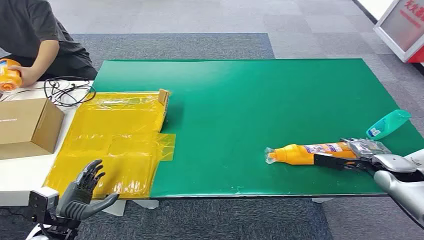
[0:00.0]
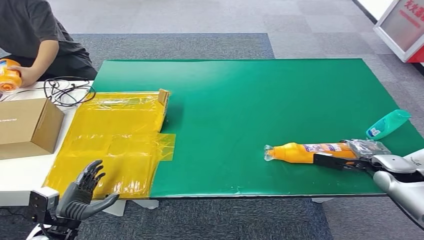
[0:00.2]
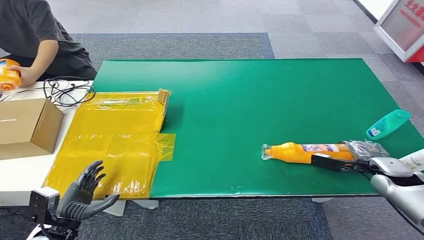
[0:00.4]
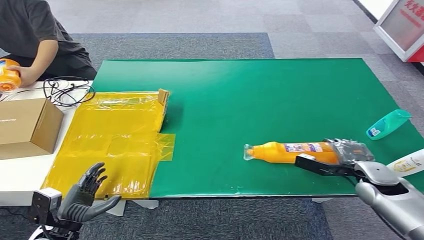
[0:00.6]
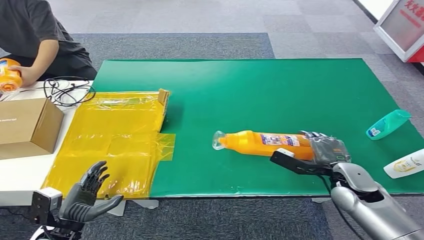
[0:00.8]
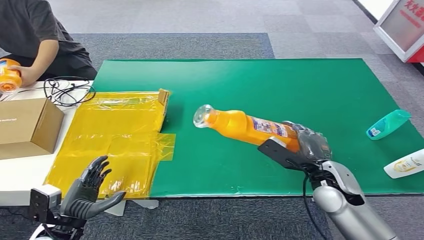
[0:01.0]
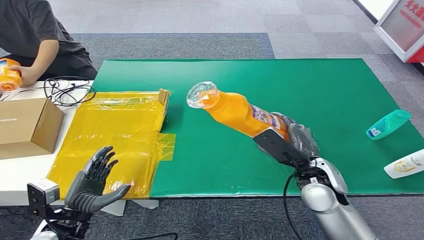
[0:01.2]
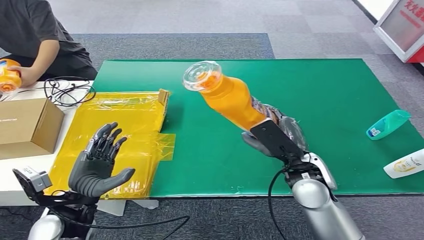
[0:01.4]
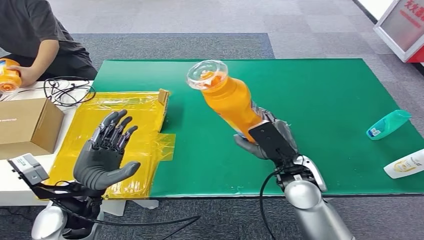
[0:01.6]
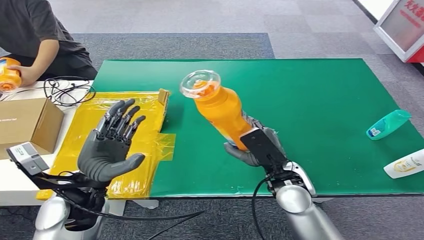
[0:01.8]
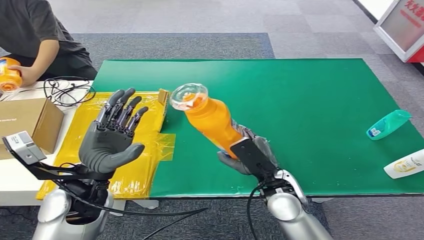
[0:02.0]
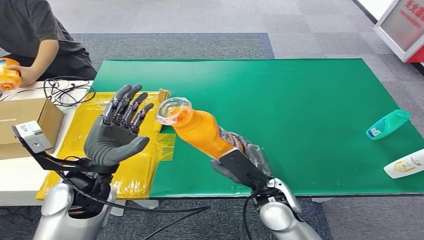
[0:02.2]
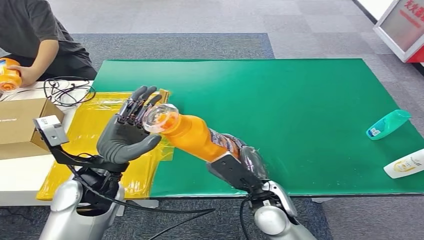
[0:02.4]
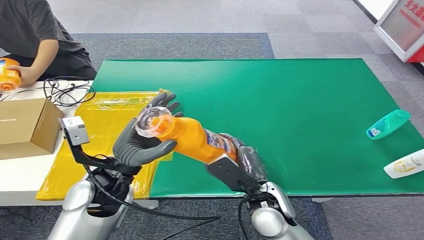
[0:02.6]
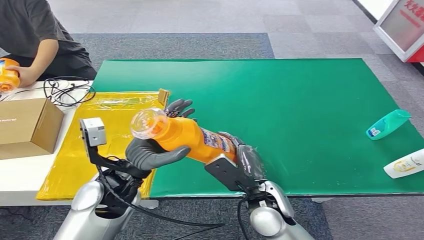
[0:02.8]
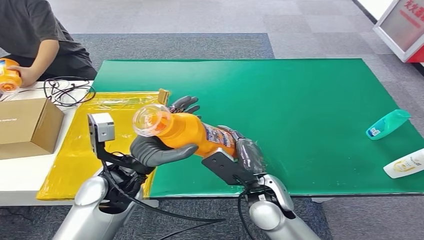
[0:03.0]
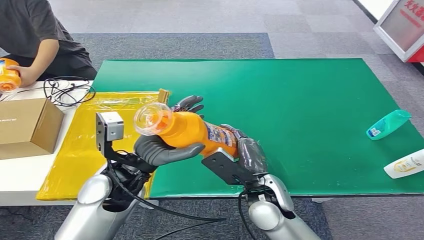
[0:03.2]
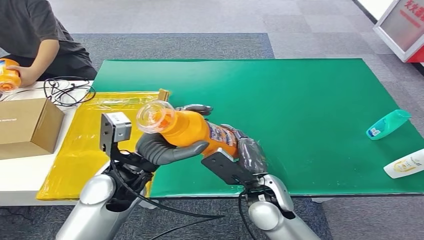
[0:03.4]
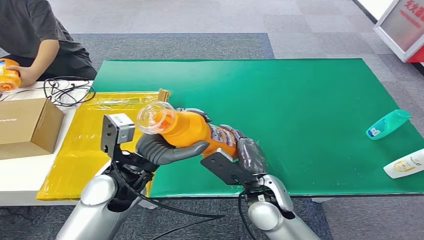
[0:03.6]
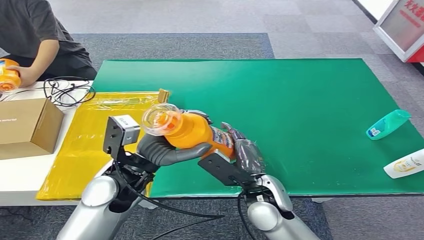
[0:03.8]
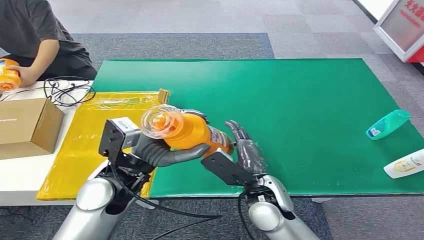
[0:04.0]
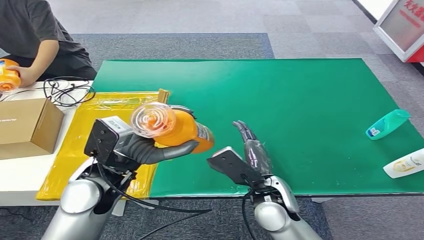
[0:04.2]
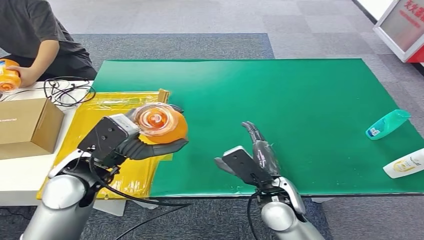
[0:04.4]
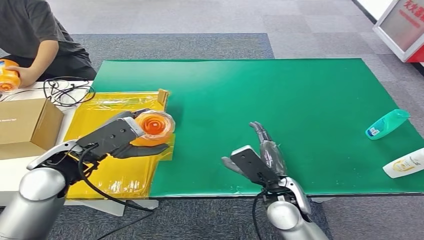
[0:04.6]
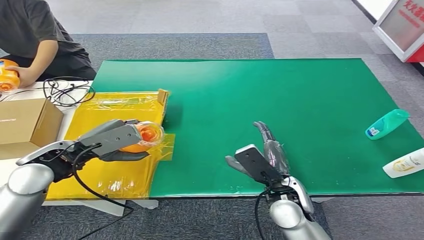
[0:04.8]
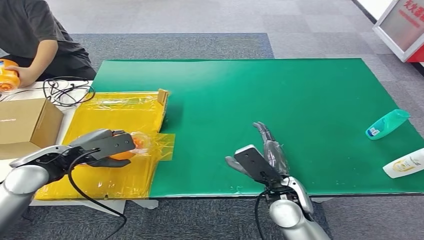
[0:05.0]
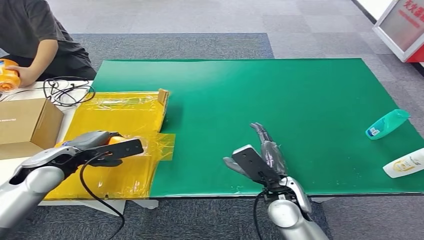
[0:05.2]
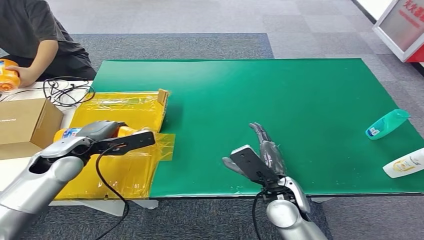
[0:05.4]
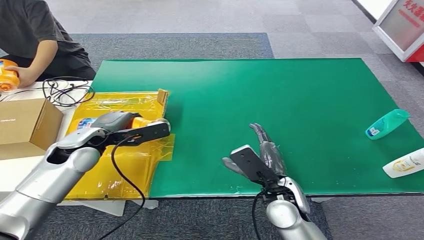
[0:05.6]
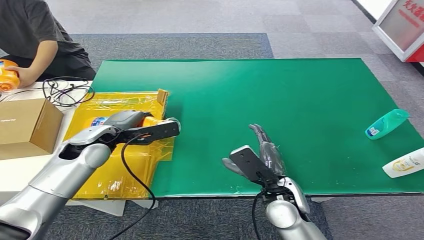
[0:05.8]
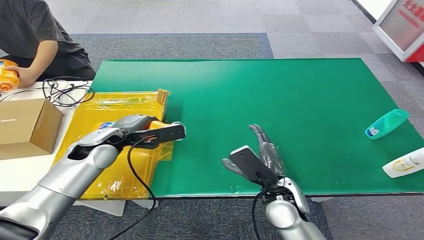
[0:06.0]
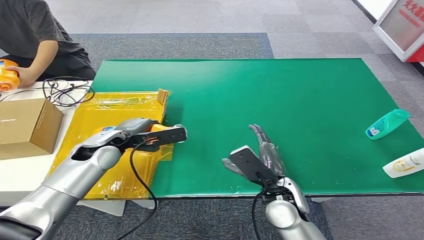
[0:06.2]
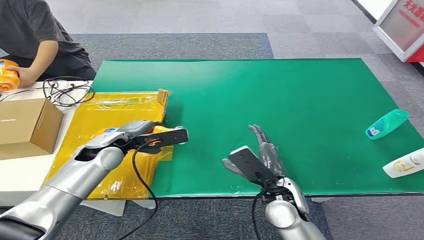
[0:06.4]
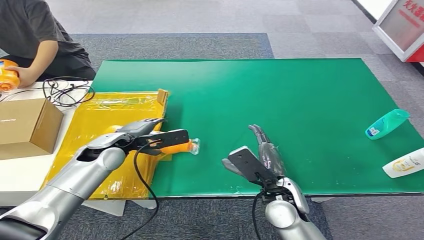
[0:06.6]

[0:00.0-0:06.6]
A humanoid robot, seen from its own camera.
Step, 0:00.0 to 0:01.6: Pick up the bottle from the table.
Step, 0:01.8 to 0:06.6: Turn the bottle to the front side.
0:03.2 to 0:05.0: The right hand changes place by approximately 5 cm; the left hand heads to the left, covering about 20 cm.
0:05.0 to 0:06.6: The left hand heads to the right and downward, covering about 15 cm.

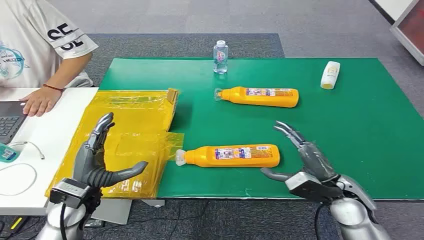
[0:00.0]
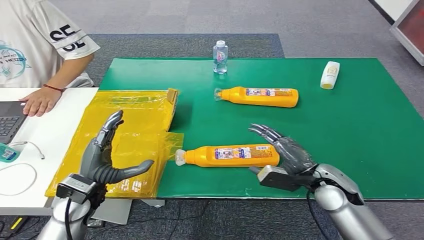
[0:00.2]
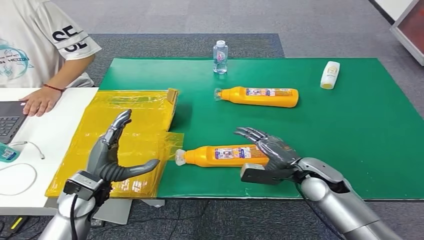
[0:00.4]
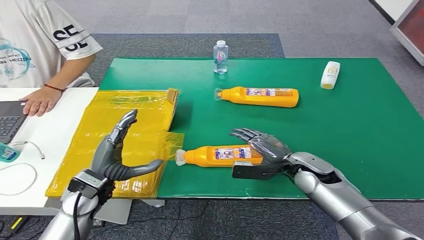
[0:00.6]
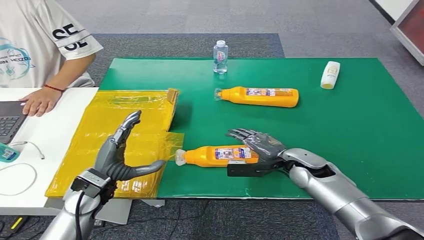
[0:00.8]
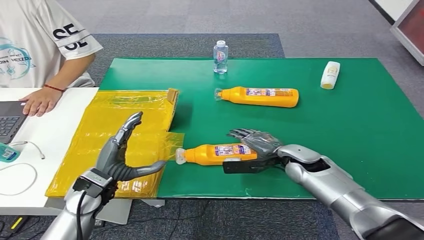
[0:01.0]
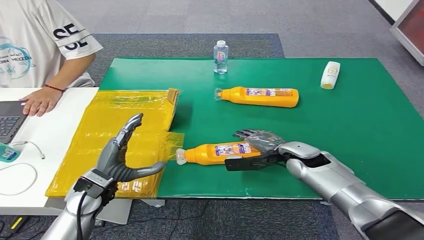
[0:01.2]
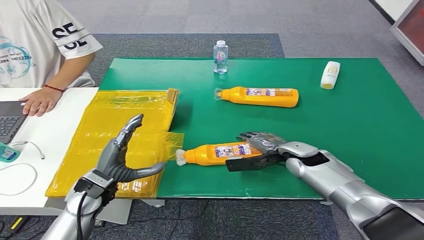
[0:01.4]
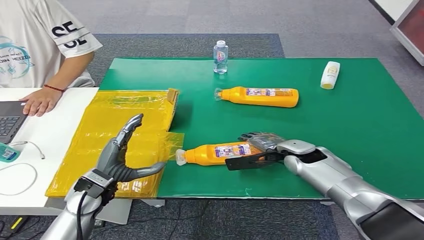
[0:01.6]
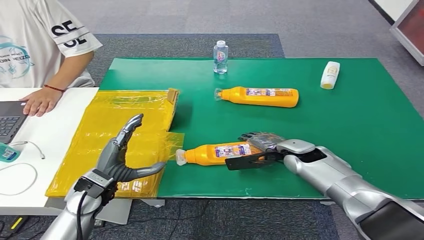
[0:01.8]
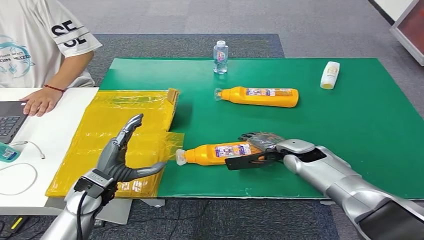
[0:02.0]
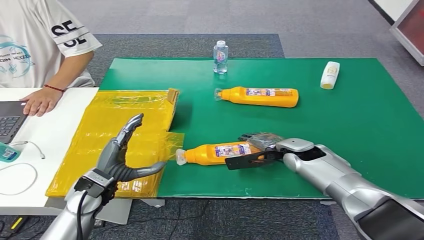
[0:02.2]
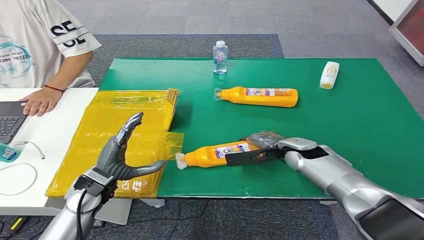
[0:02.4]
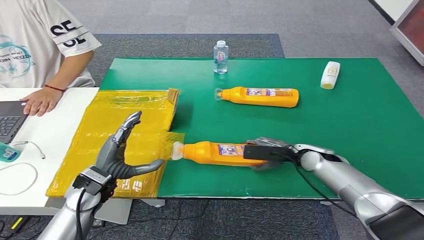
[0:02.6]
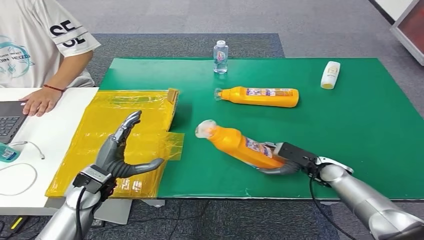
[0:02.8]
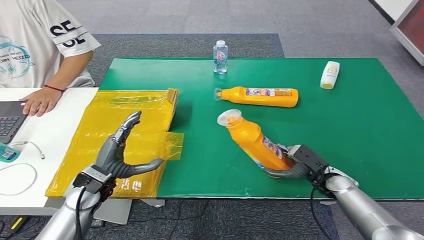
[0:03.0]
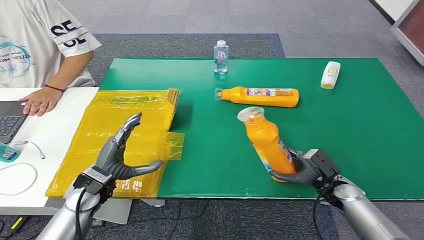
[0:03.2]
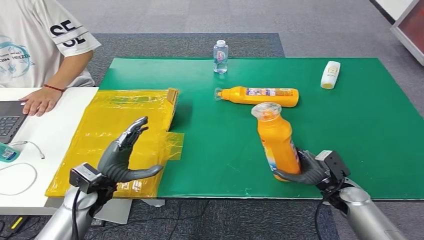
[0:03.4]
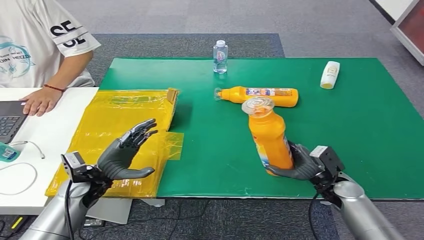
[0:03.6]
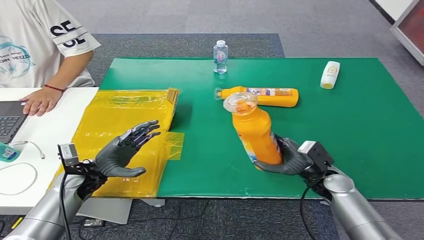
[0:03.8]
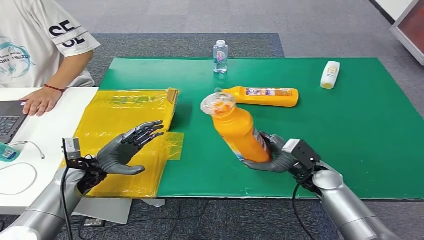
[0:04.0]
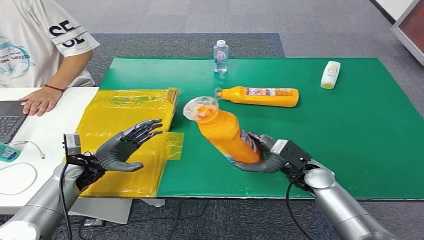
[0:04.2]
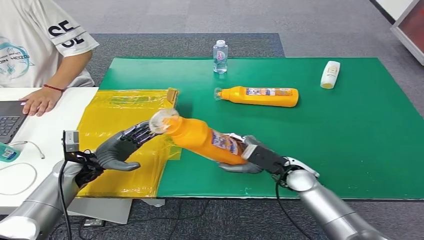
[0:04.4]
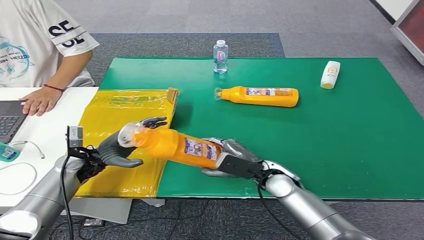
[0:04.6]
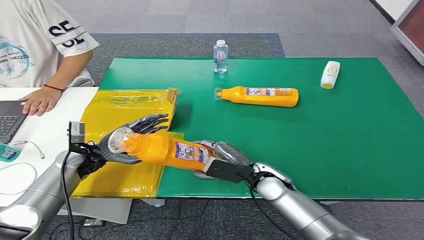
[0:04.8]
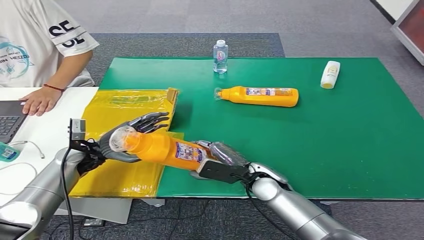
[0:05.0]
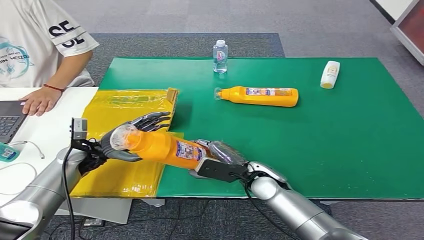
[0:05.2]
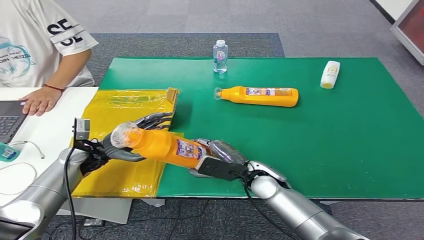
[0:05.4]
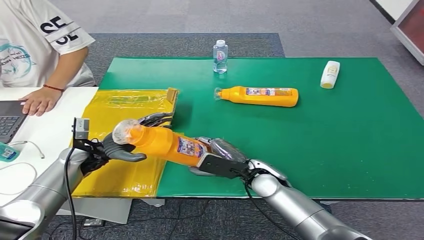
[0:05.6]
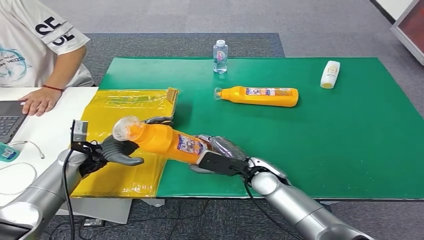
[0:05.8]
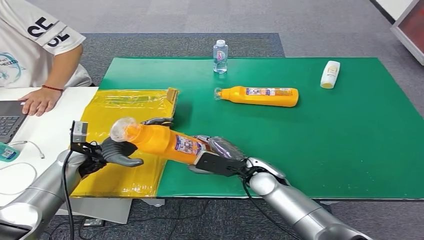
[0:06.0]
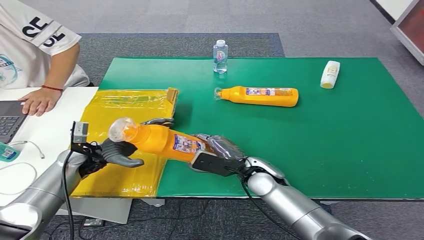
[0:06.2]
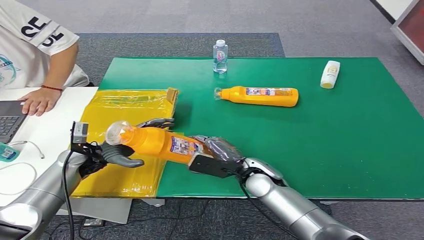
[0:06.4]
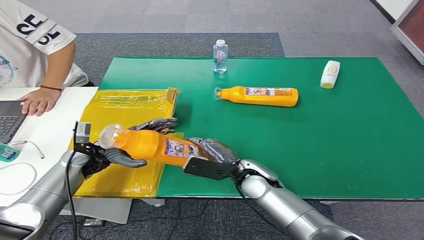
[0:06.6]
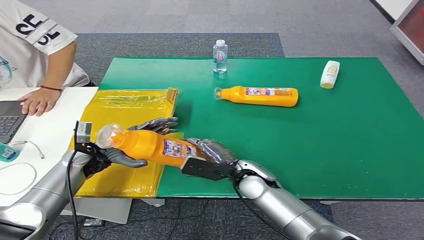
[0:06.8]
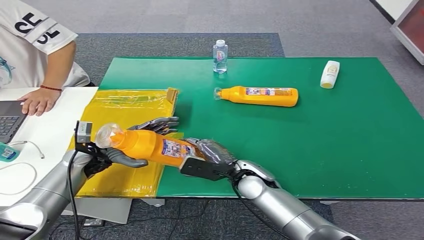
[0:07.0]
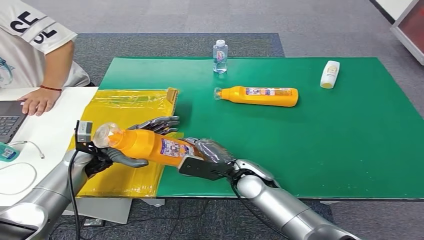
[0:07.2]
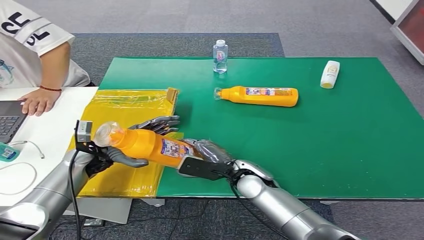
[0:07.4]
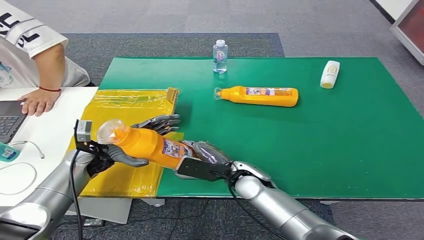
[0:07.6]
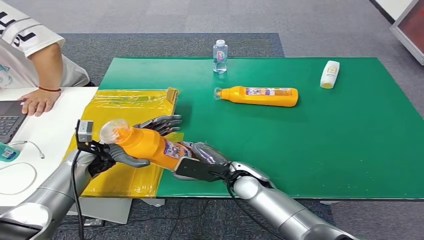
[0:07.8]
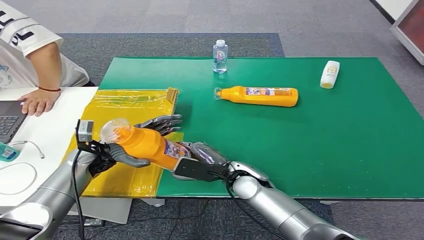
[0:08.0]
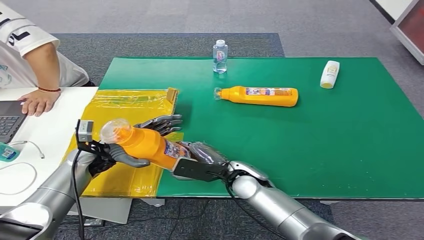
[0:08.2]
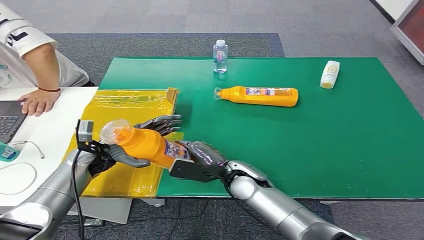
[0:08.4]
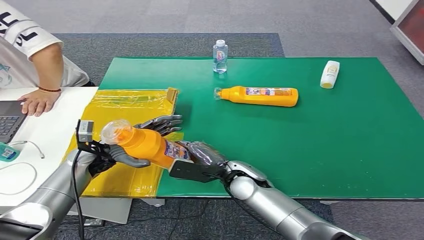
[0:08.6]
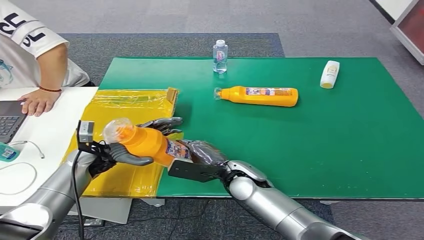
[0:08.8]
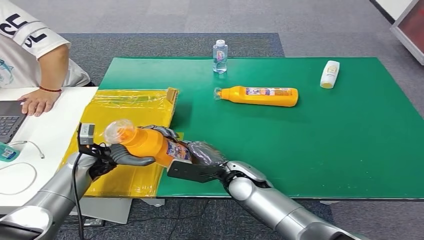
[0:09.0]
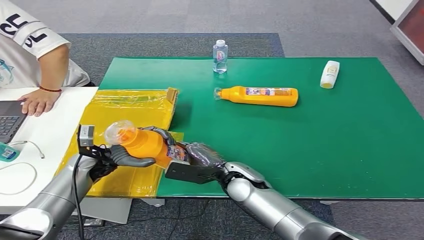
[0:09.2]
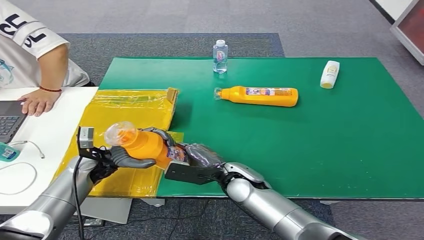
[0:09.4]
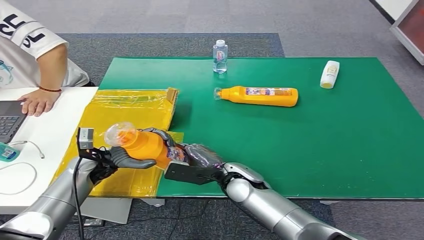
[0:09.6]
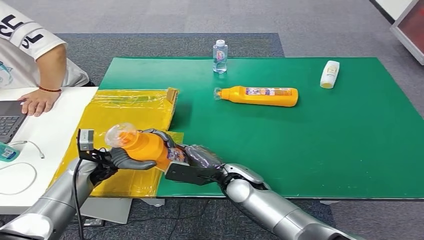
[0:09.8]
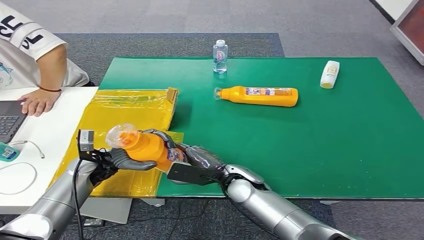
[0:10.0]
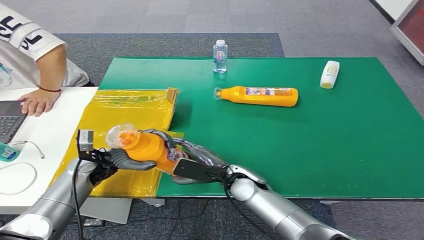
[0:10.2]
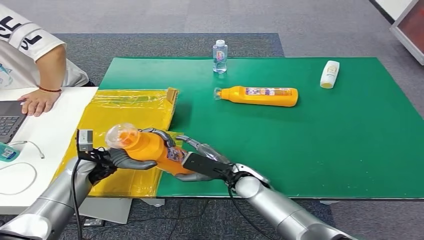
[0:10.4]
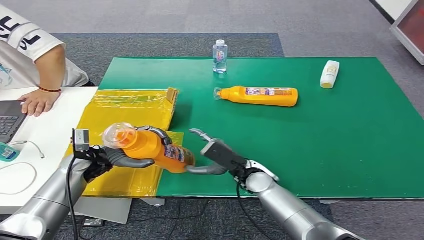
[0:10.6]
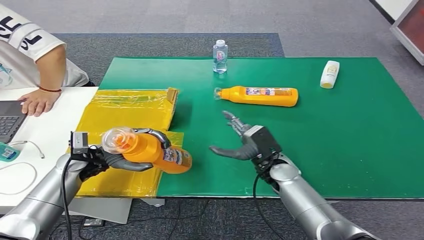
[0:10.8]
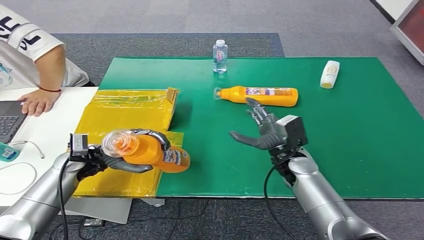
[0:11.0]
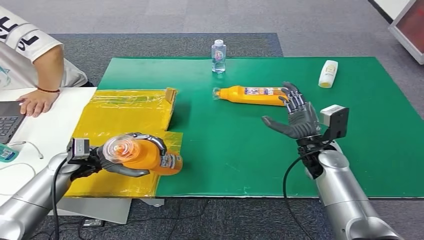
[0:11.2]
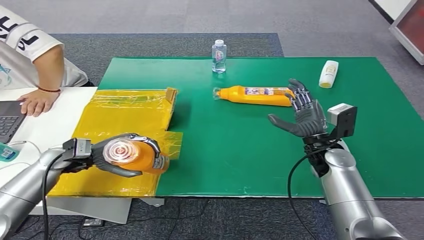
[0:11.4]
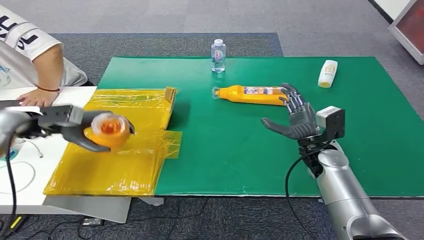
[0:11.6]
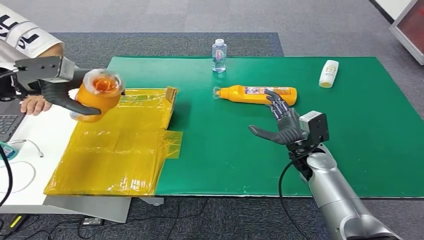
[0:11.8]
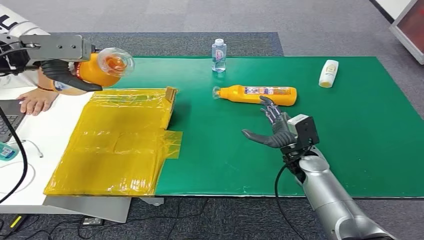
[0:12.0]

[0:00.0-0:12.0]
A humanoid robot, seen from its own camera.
Step, 0:00.0 to 0:03.2: Pick up the bottle from the table.
0:01.6 to 0:03.0: The right hand is displaced to the right, downward and backward by roughly 15 cm.
0:03.0 to 0:04.4: The right hand heads to the left and upward, covering about 15 cm. The left hand travels forward and to the left by about 10 cm.
0:04.4 to 0:06.0: The right hand moves to the left, some 10 cm.
0:06.0 to 0:10.4: The hands make only small movements.
